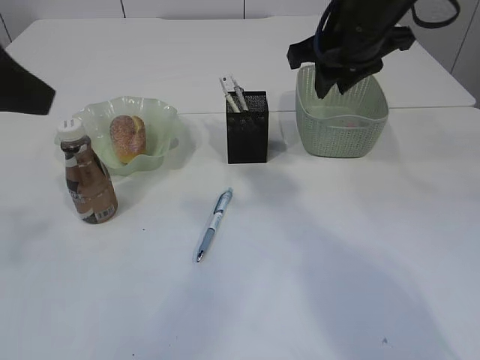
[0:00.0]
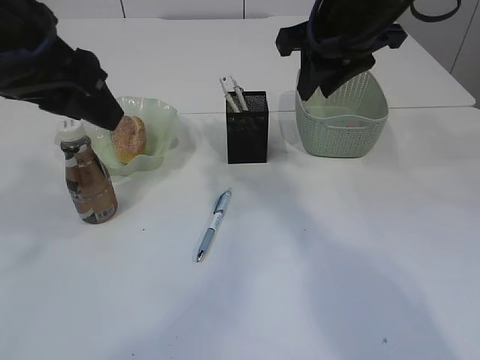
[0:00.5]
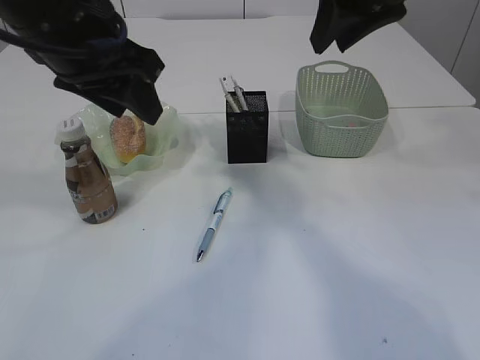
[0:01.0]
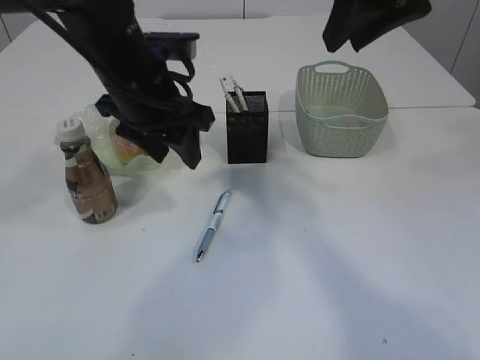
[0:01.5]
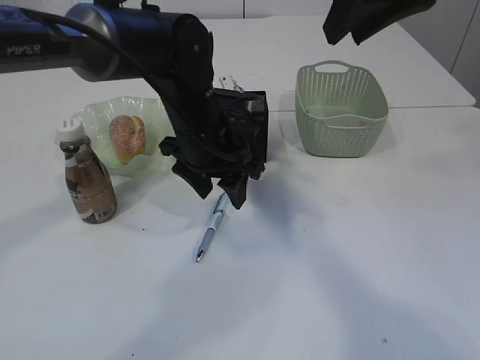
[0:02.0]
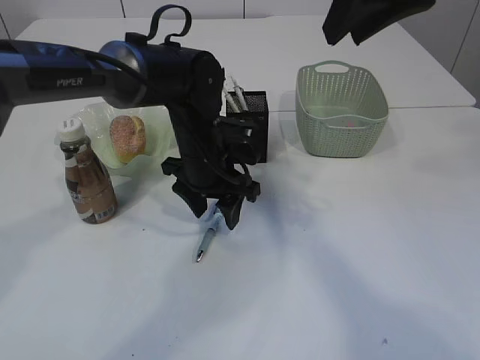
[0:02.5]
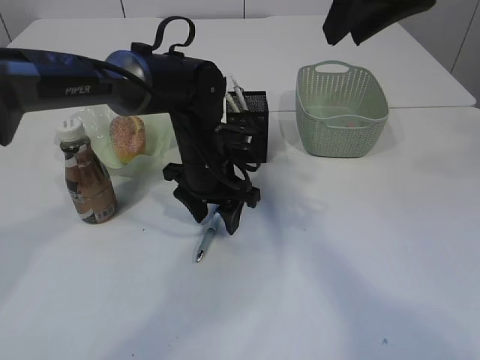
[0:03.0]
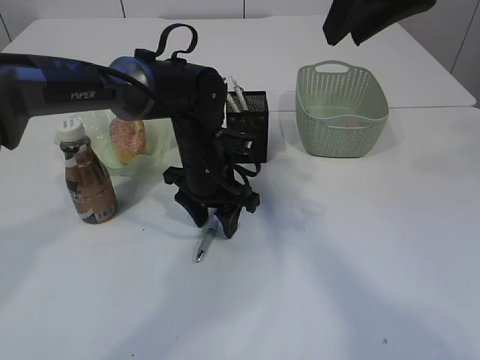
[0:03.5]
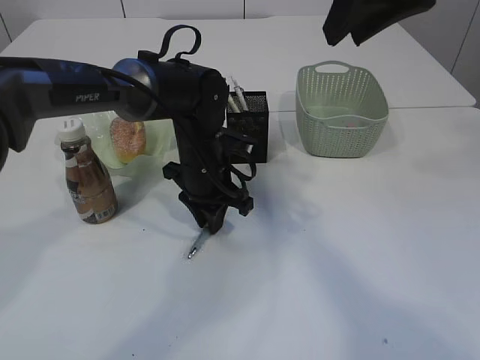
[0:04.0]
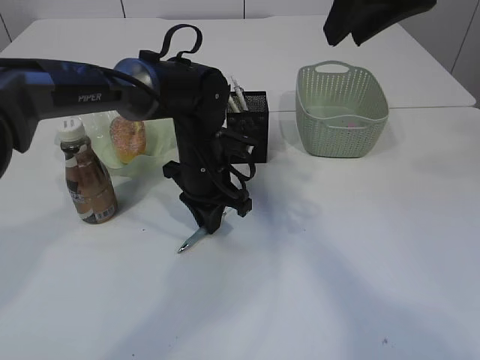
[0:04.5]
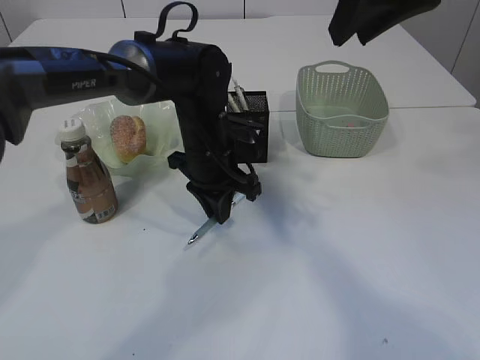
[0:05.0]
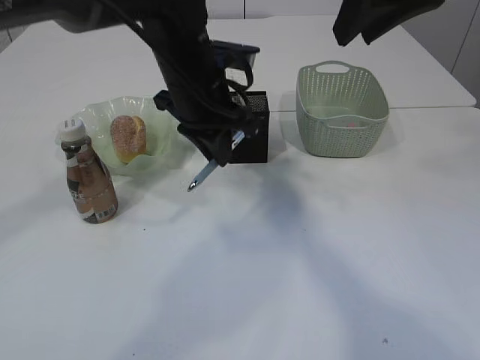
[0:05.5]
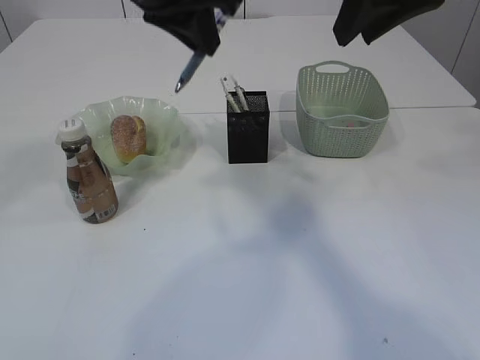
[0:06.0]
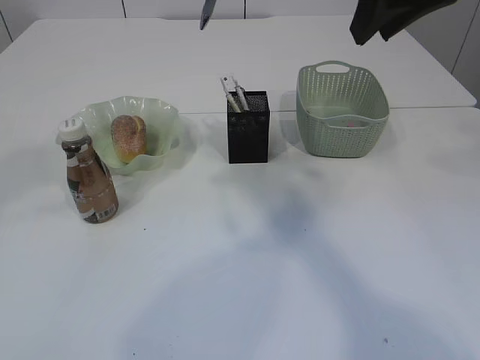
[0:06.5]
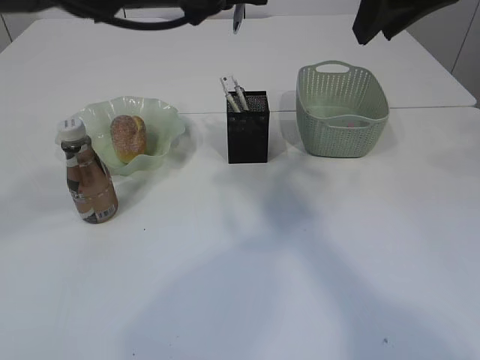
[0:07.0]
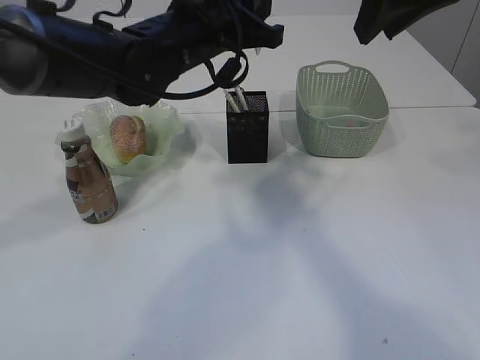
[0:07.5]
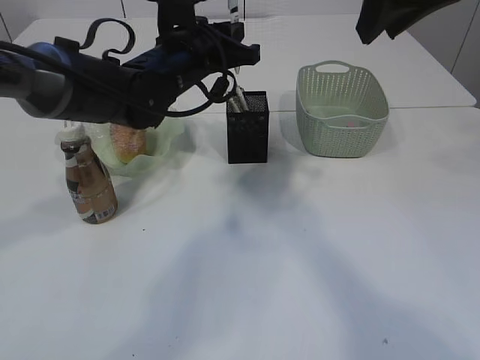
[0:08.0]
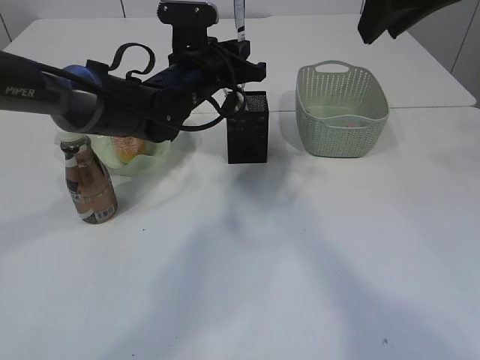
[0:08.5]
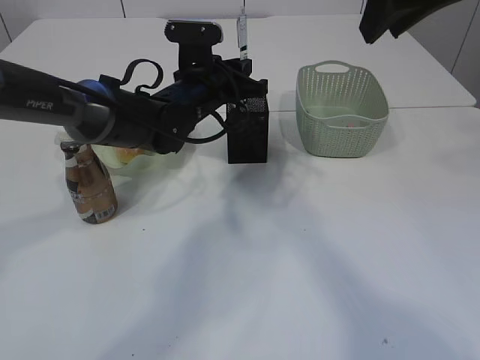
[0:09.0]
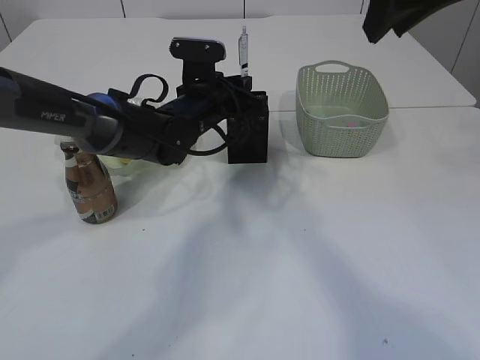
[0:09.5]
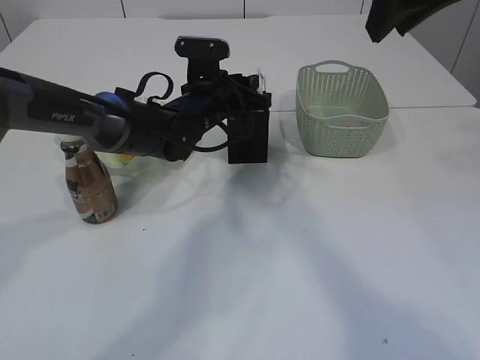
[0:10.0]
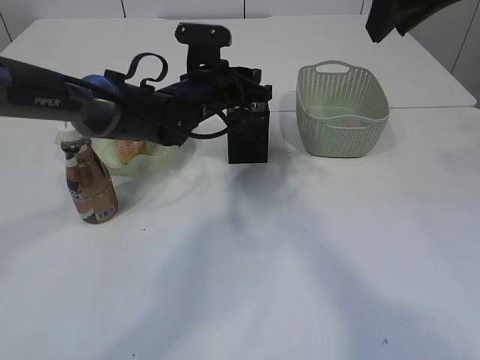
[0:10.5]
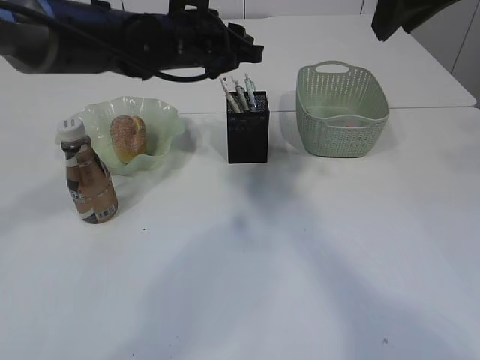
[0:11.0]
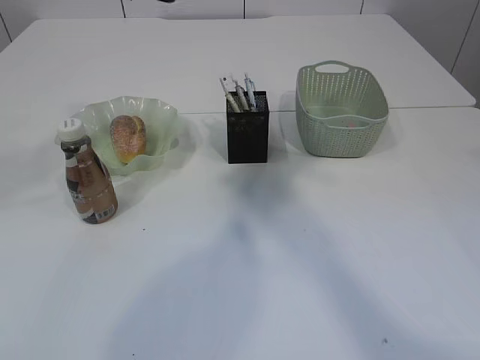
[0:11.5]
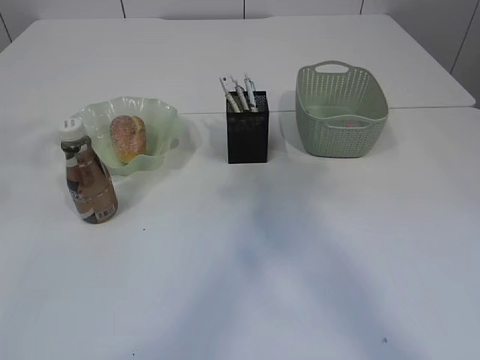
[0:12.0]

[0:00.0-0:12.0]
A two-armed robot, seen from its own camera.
Step, 0:00.0 to 0:05.0: Pick up the pen with left arm.
Step, 0:05.5 to 0:11.0: Place the pen into the pen holder.
0:00.0 to 0:02.0: The right gripper goes approximately 15 cm upward and backward. The left gripper is displaced downward, forward and to the right by approximately 30 cm.
0:02.0 to 0:04.0: The left gripper moves downward, about 5 cm, and closes up.
0:04.0 to 0:06.0: The left gripper heads upward, covering approximately 25 cm.
0:06.0 to 0:08.0: The left gripper shifts about 15 cm downward and forward.
0:08.0 to 0:10.0: The left gripper shifts about 10 cm downward.
0:10.0 to 0:12.0: The right gripper travels backward and upward by about 10 cm, while the left gripper is displaced upward, backward and to the left by some 40 cm.

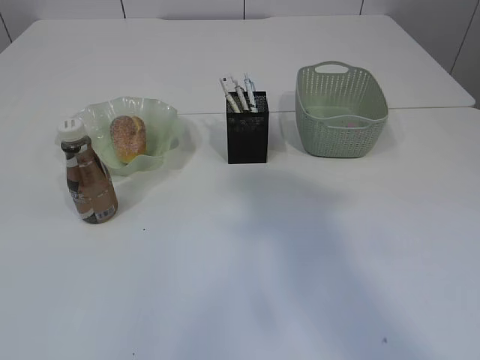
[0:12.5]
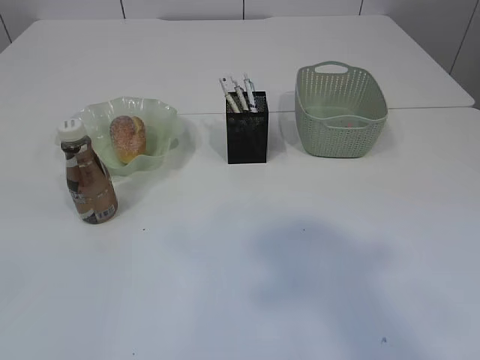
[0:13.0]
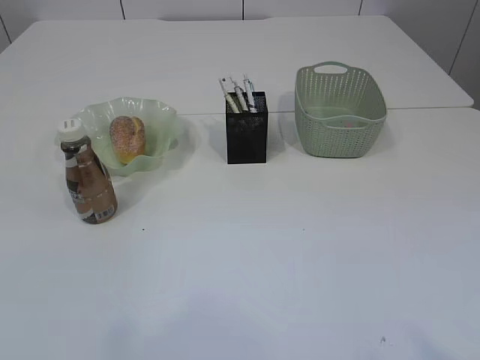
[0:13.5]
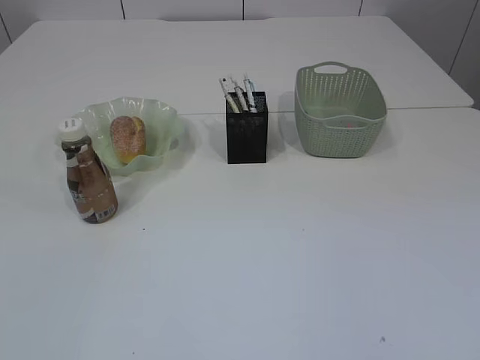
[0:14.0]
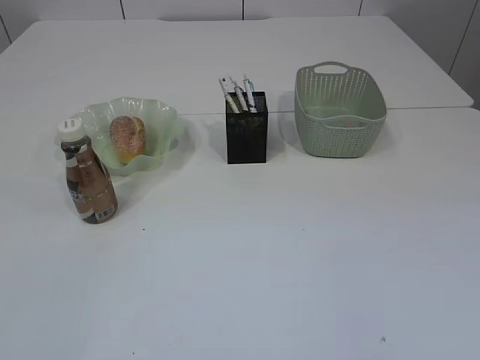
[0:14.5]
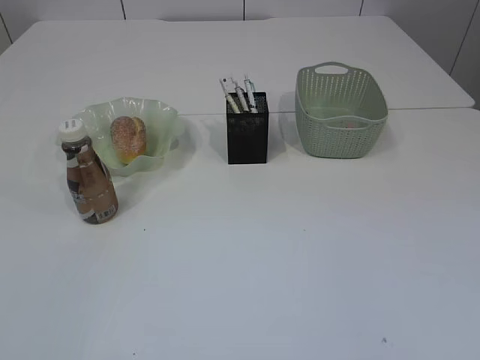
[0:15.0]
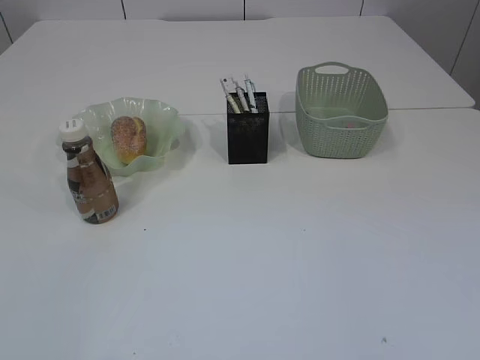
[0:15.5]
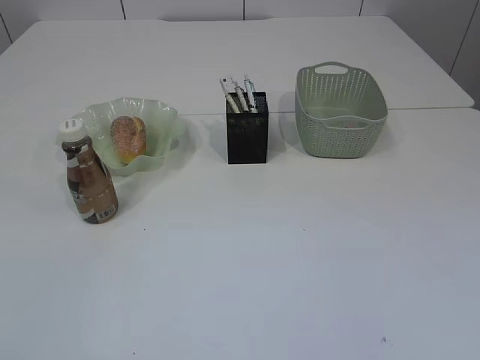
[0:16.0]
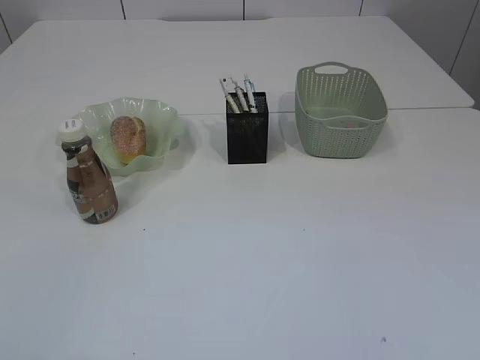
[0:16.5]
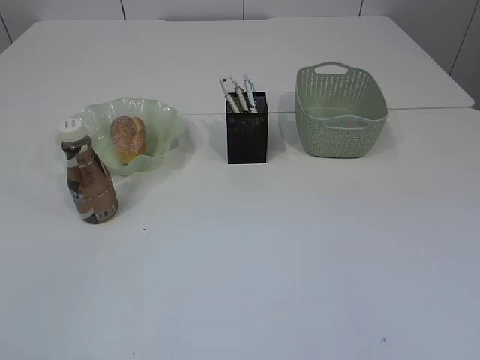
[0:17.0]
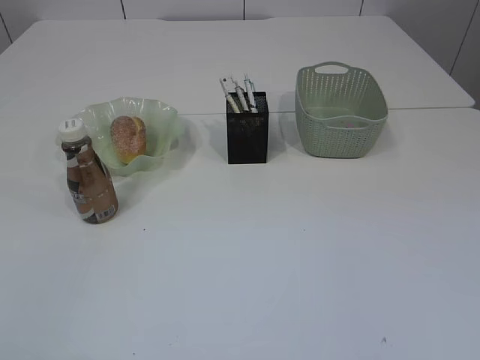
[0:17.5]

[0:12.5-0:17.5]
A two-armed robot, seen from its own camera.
0:12.5 to 0:15.0: The grippers both shift downward and backward by about 30 cm.

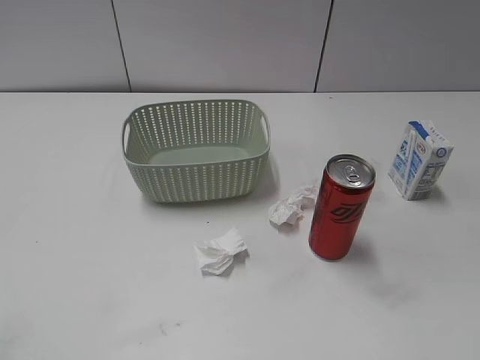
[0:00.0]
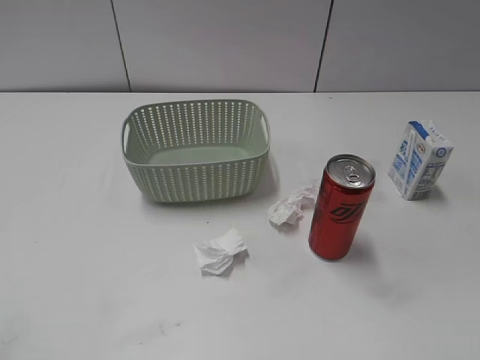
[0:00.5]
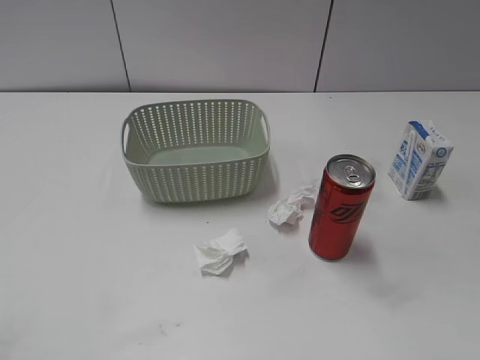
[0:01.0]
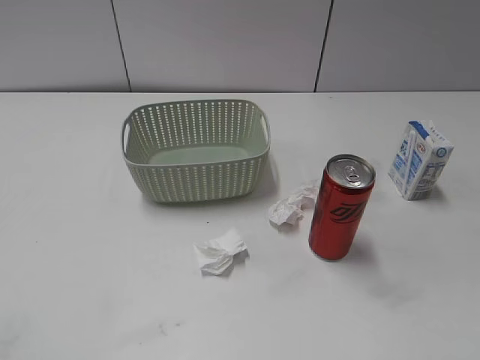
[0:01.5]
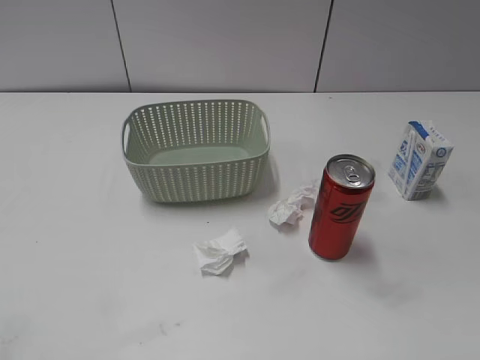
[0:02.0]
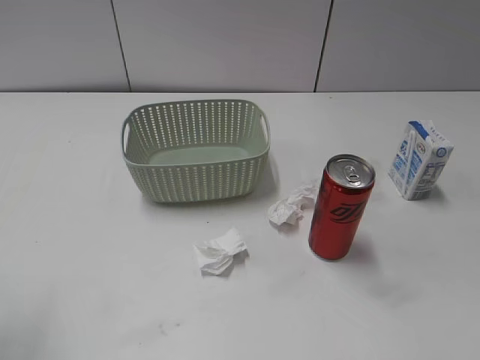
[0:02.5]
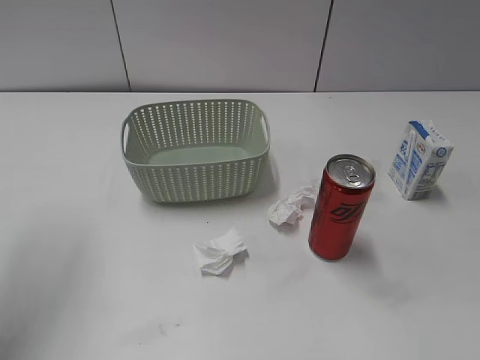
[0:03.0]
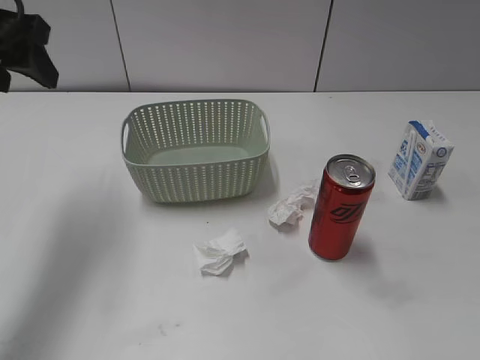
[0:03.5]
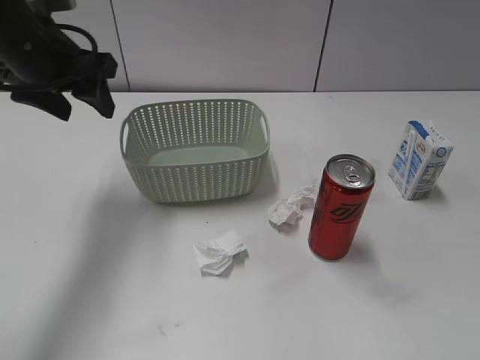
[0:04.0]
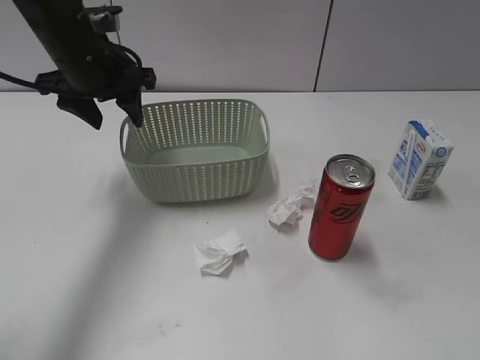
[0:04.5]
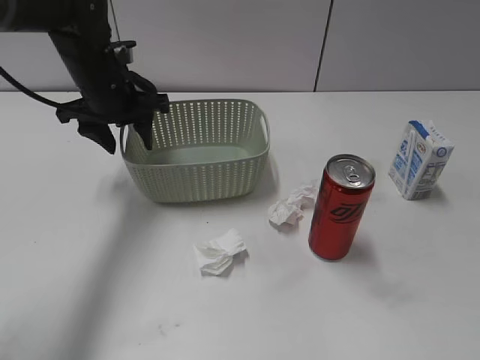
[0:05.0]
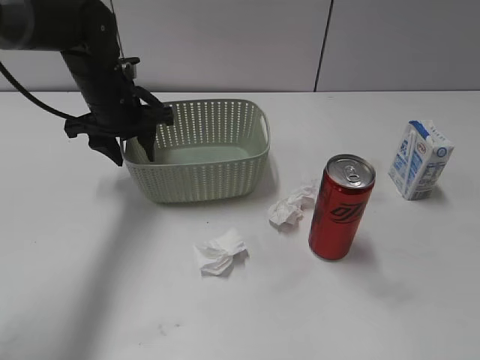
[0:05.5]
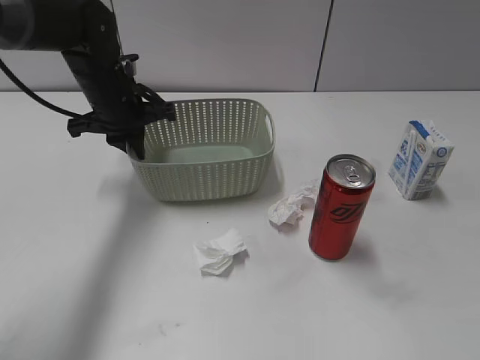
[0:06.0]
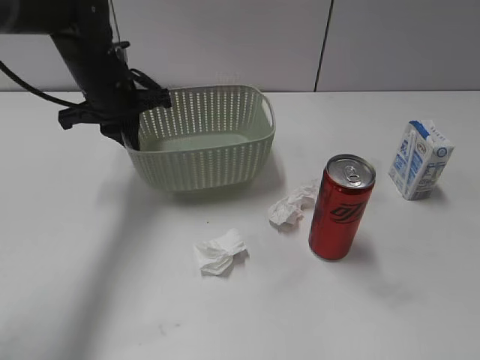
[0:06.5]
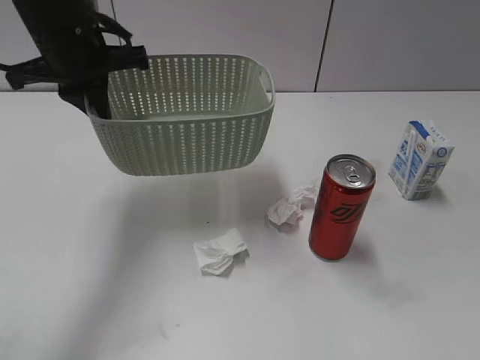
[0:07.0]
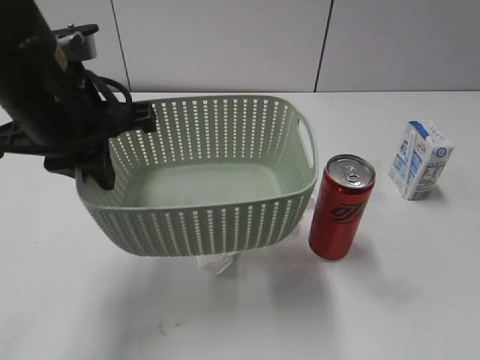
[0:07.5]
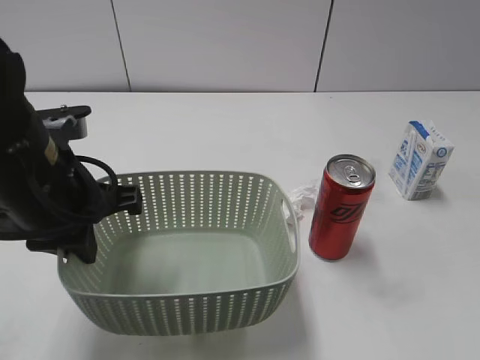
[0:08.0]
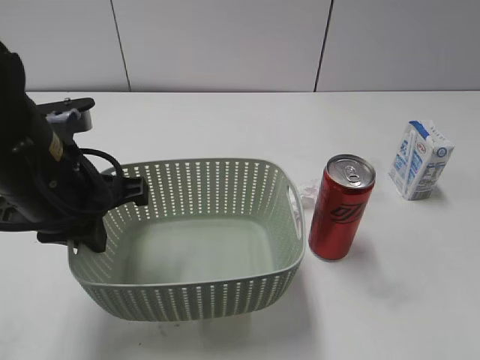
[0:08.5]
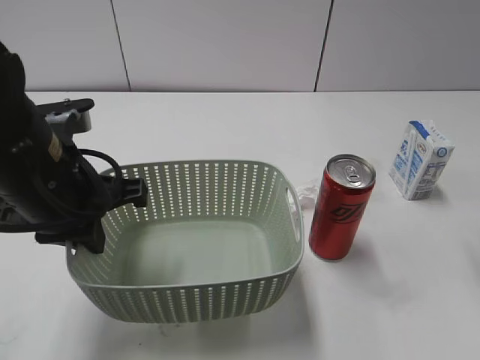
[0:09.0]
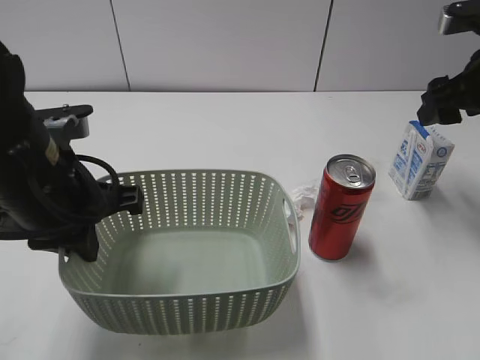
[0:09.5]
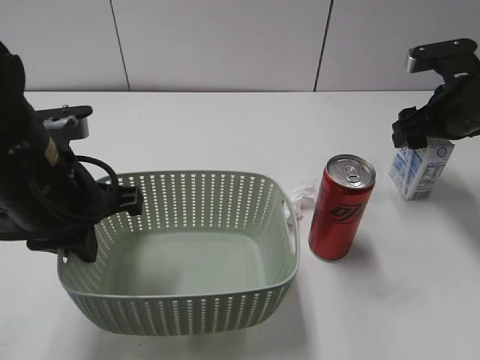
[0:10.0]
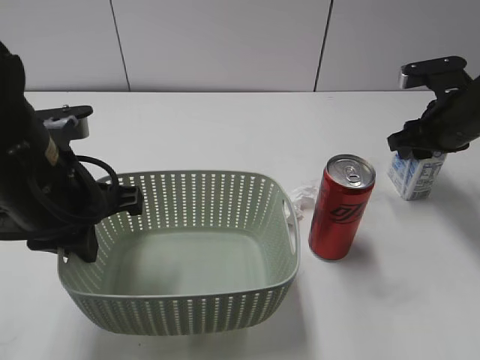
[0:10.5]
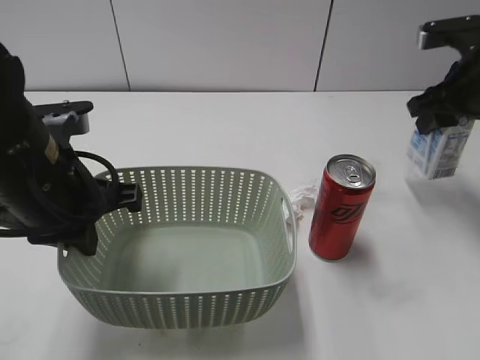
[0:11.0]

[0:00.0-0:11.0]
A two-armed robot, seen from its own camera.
Step, 0:03.5 to 0:06.0: Grasp the basket with left gripper.
Step, 0:06.5 to 0:08.0: Lift the basket with left gripper.
Step, 0:08.5 to 0:10.5: Grasp the milk with right gripper.
0:02.0 to 0:03.5: The left gripper travels forward by some 30 cm.
0:03.5 to 0:05.5: The left gripper goes some 20 cm downward, forward and to the right.
0:05.5 to 0:07.5: The left gripper shifts about 20 cm backward and upward, and closes up.
0:07.5 to 0:09.0: The left gripper goes roughly 5 cm downward. The right gripper shifts approximately 20 cm forward.
0:09.0 to 0:11.0: The right gripper is displaced forward and downward by approximately 20 cm, and closes.
